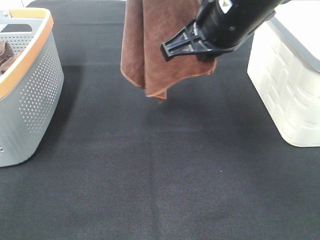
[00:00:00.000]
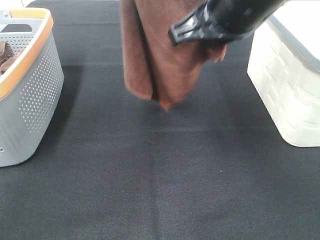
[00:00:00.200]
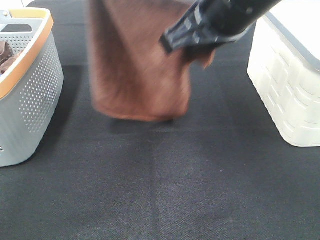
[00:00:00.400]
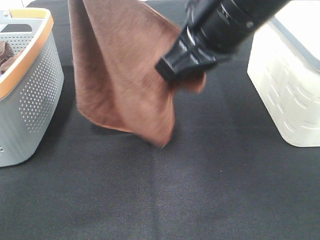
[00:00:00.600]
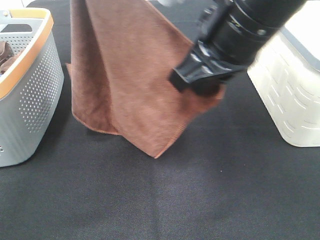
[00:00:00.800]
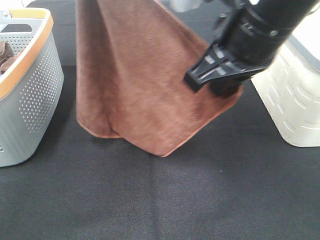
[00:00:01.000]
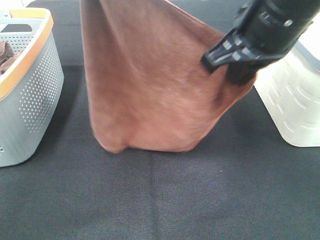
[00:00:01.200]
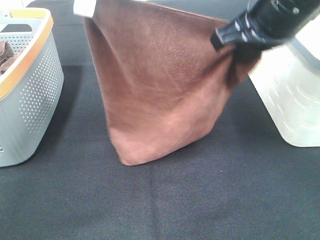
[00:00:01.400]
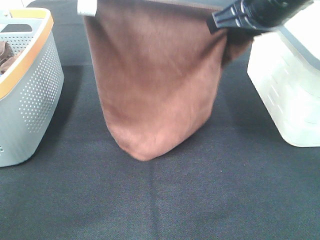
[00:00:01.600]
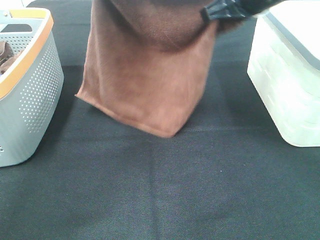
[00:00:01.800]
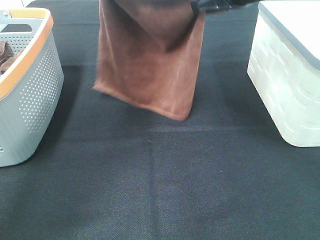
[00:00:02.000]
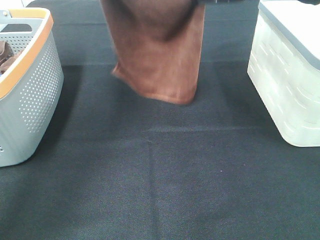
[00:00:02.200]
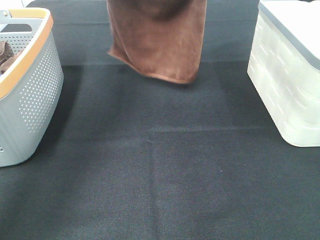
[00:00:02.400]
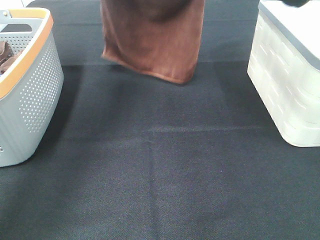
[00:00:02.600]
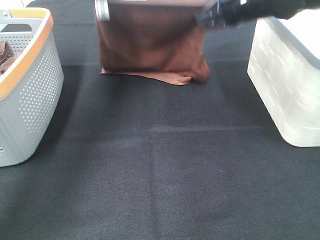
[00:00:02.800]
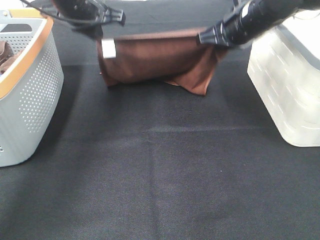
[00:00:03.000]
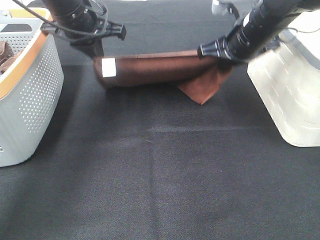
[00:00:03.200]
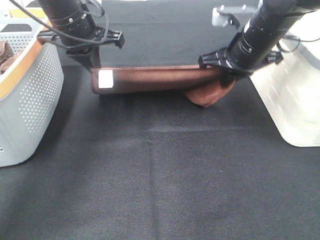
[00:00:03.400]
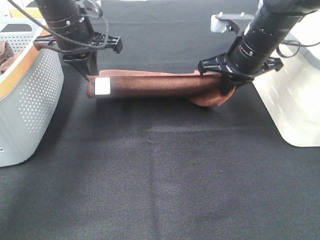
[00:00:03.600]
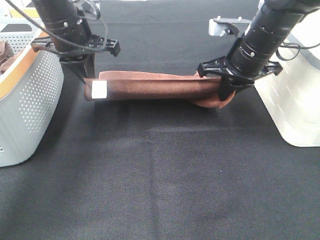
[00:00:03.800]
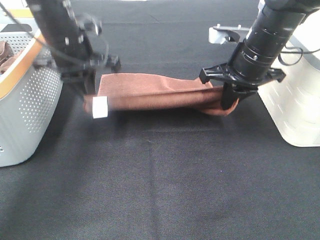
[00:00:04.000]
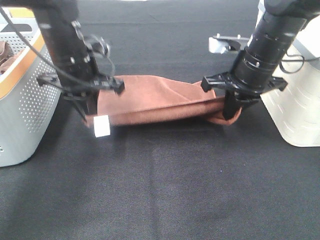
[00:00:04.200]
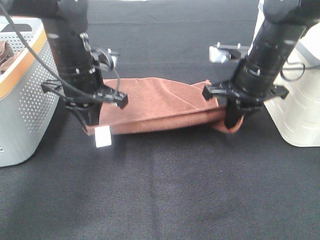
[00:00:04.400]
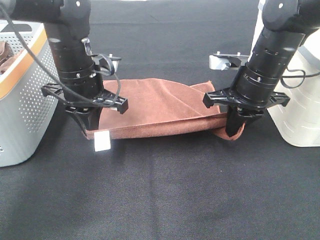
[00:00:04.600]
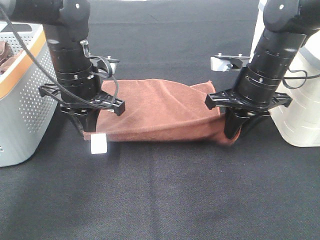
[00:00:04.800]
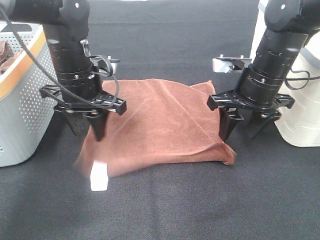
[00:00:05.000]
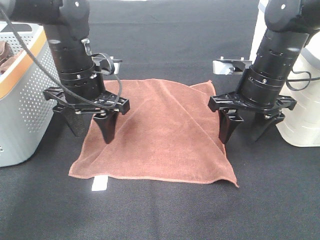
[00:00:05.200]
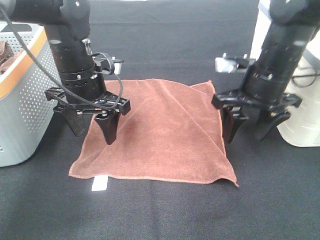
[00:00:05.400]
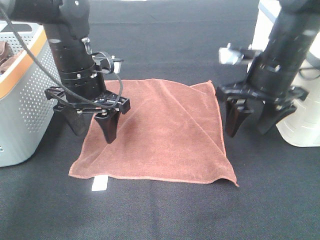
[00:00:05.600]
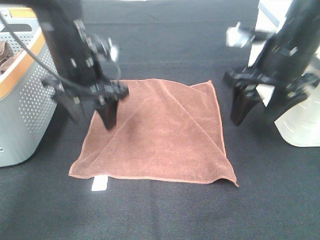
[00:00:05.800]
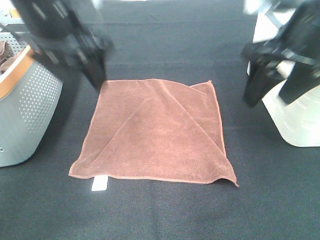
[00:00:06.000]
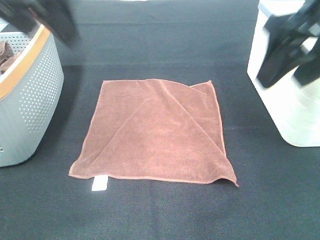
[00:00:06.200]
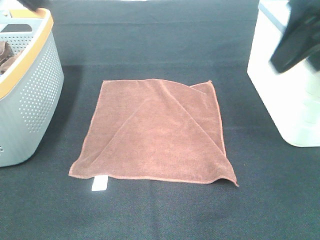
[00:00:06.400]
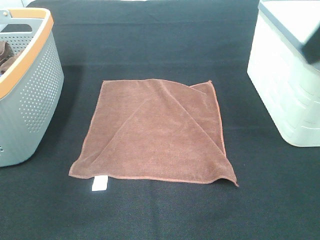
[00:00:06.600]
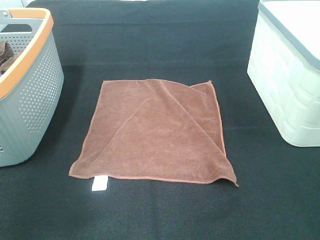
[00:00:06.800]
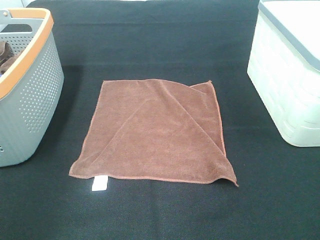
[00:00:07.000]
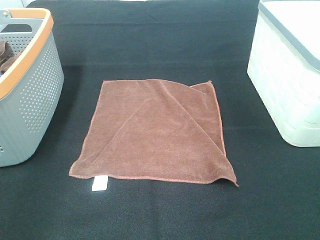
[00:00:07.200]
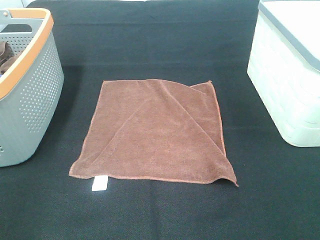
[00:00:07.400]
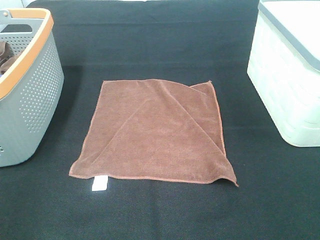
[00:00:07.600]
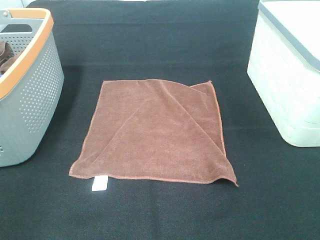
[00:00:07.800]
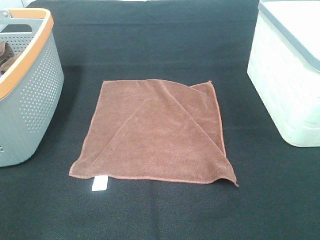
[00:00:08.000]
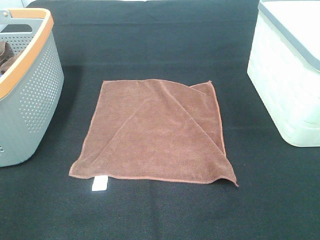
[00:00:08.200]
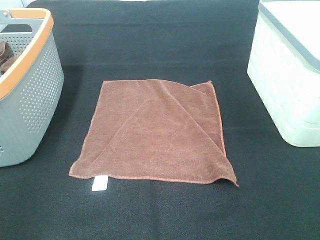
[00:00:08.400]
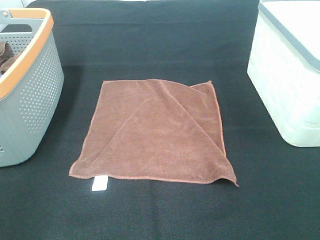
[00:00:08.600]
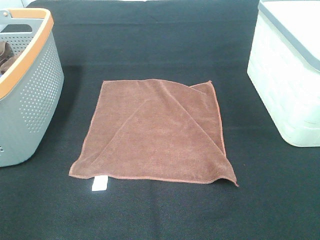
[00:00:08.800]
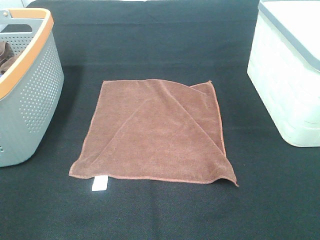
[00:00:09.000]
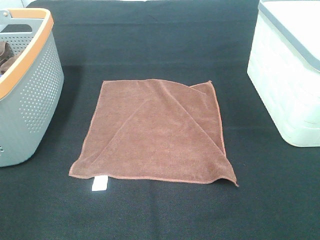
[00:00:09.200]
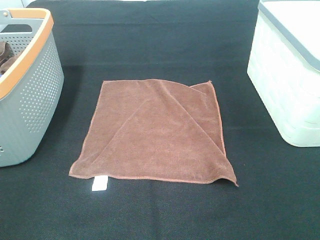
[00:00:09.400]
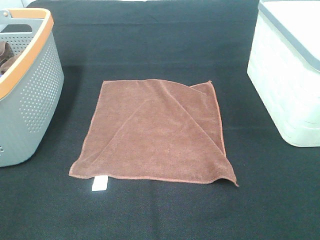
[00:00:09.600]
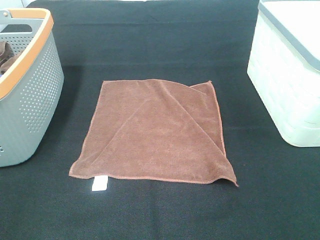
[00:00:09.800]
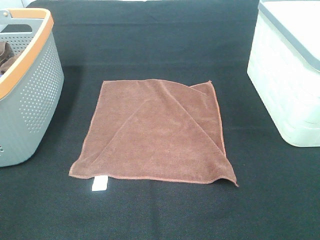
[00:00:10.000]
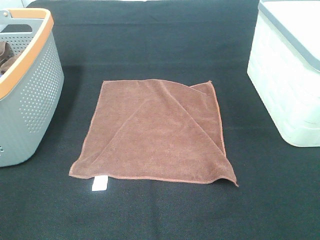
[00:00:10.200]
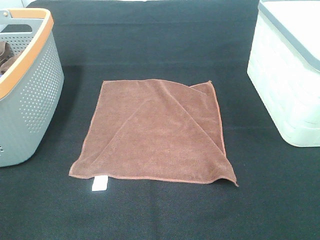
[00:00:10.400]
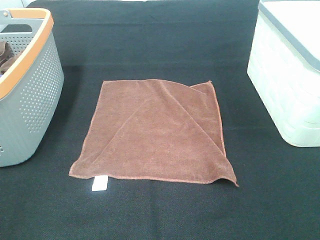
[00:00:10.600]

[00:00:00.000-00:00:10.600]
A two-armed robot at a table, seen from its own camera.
Task of the whole recording: Remove the towel and place it.
00:00:00.000 to 00:00:01.600: The right gripper shifts roughly 5 cm to the right. The left gripper is displaced downward by roughly 10 cm.
00:00:01.600 to 00:00:03.000: The left gripper is displaced downward and forward by about 15 cm, while the right gripper heads forward and downward, covering approximately 15 cm.
00:00:03.000 to 00:00:04.600: The grippers both shift backward and downward by some 10 cm.
00:00:04.600 to 00:00:06.000: The right gripper goes about 15 cm upward and backward, and opens; the left gripper heads upward, covering about 15 cm, and opens up.
00:00:06.000 to 00:00:07.600: The left gripper goes some 35 cm backward and to the left; the right gripper heads backward, covering about 25 cm.
00:00:07.600 to 00:00:09.000: Neither gripper changes place.

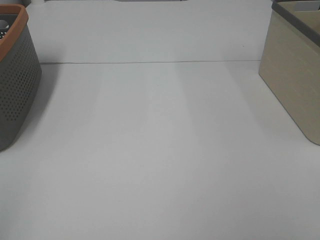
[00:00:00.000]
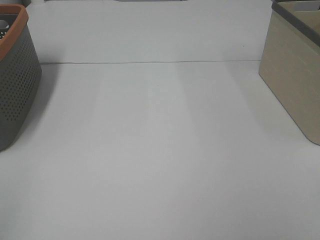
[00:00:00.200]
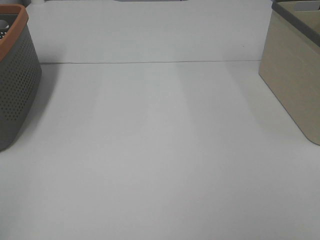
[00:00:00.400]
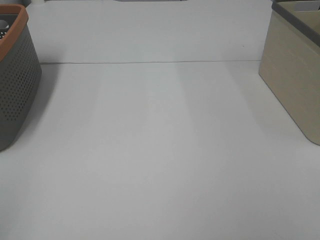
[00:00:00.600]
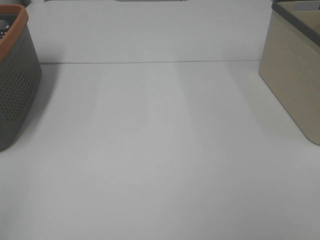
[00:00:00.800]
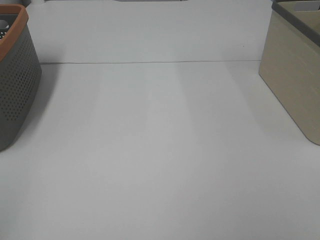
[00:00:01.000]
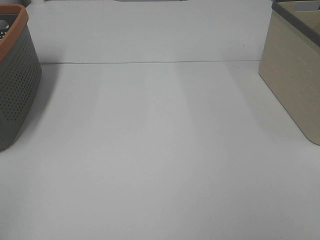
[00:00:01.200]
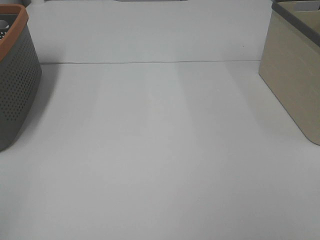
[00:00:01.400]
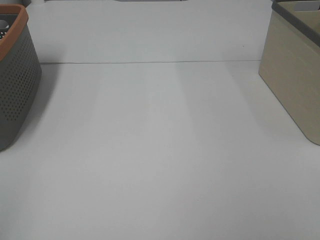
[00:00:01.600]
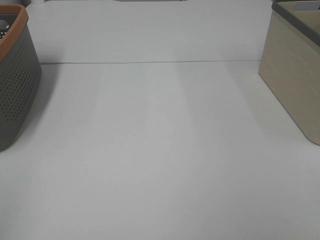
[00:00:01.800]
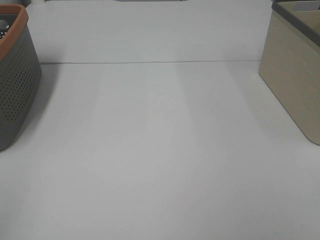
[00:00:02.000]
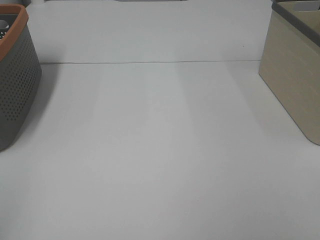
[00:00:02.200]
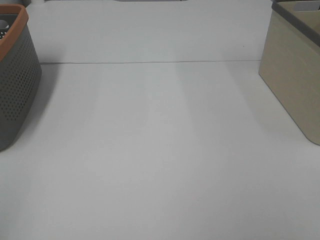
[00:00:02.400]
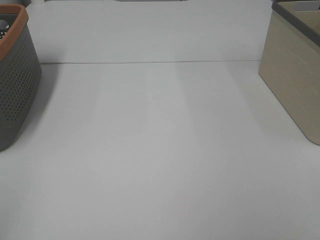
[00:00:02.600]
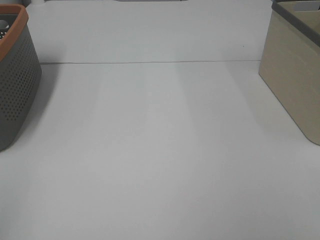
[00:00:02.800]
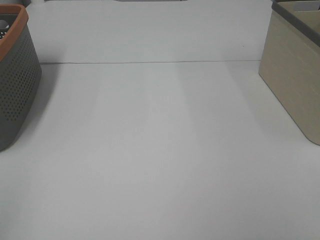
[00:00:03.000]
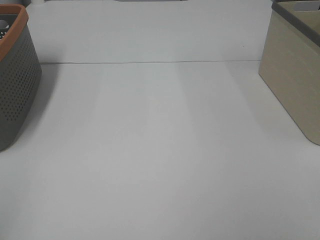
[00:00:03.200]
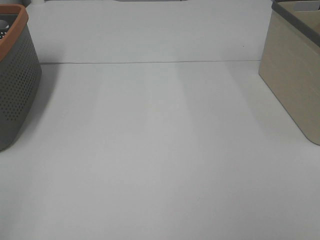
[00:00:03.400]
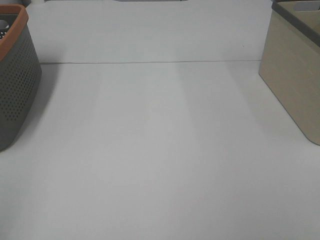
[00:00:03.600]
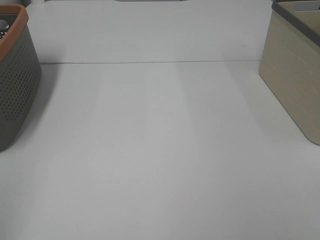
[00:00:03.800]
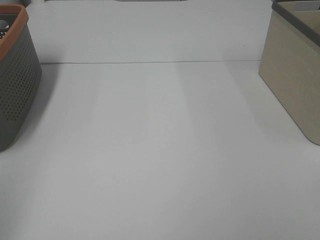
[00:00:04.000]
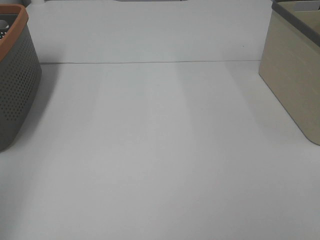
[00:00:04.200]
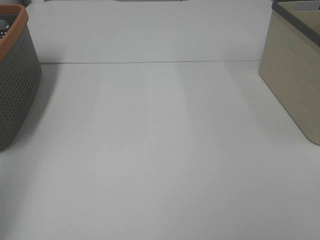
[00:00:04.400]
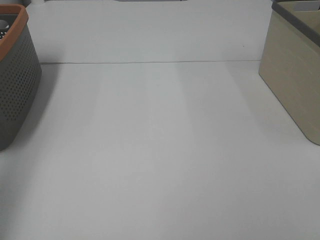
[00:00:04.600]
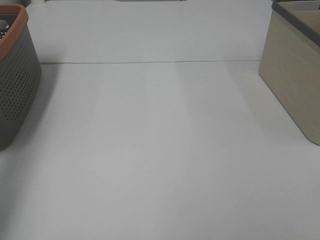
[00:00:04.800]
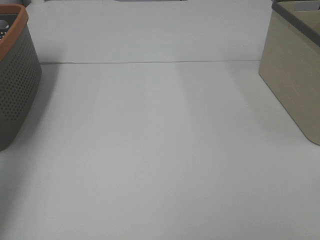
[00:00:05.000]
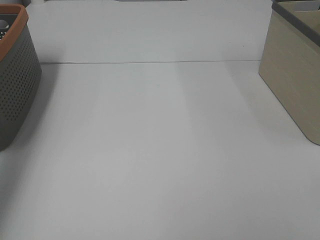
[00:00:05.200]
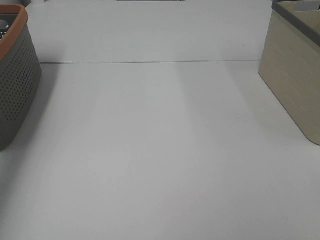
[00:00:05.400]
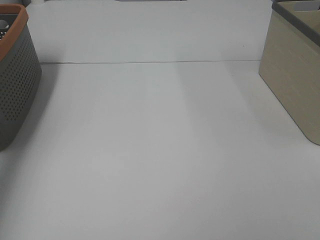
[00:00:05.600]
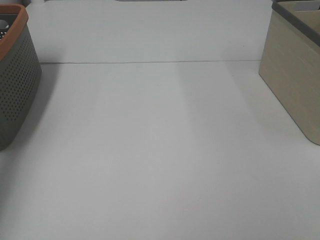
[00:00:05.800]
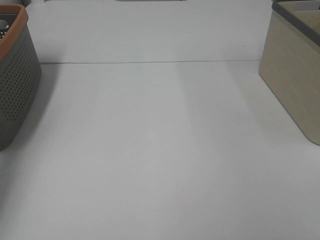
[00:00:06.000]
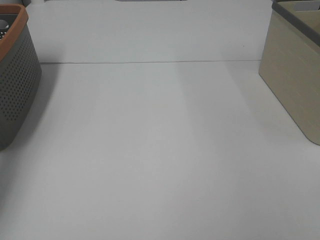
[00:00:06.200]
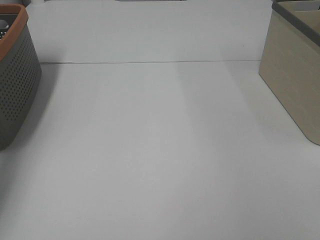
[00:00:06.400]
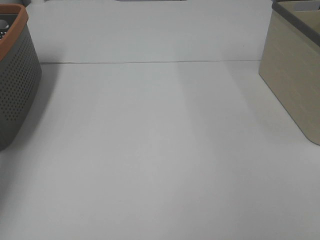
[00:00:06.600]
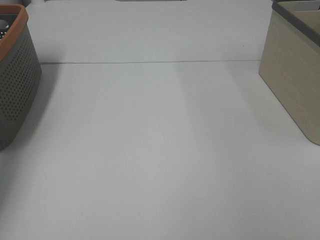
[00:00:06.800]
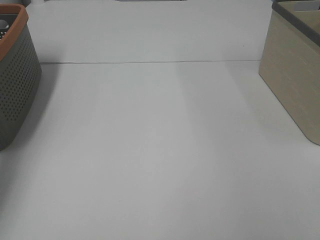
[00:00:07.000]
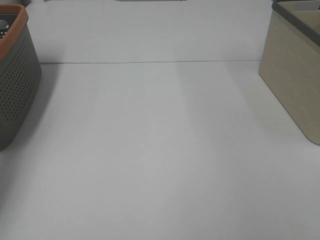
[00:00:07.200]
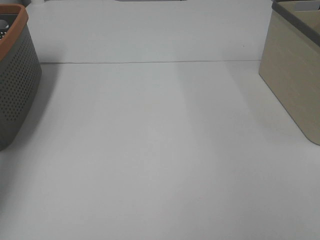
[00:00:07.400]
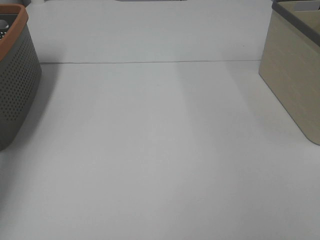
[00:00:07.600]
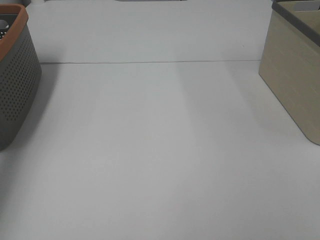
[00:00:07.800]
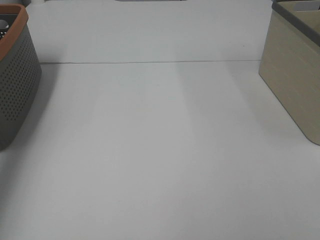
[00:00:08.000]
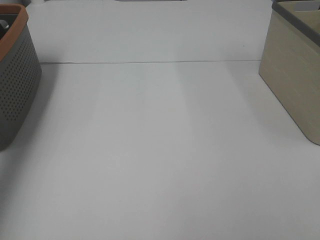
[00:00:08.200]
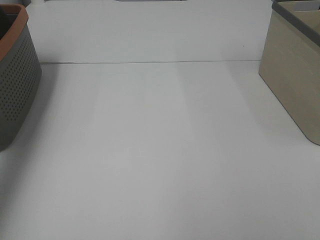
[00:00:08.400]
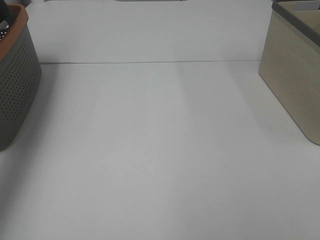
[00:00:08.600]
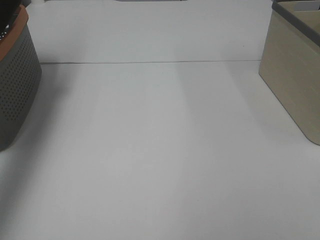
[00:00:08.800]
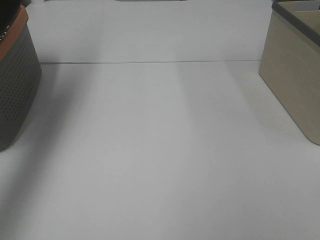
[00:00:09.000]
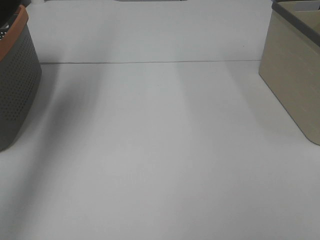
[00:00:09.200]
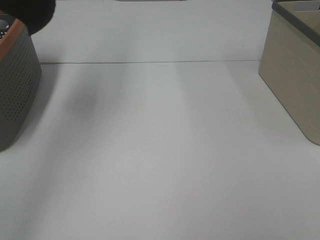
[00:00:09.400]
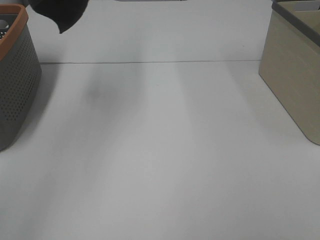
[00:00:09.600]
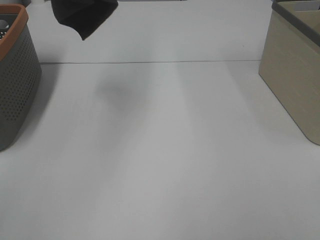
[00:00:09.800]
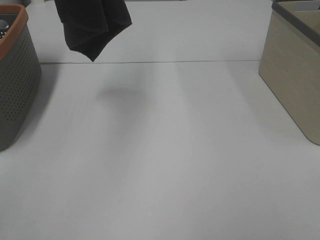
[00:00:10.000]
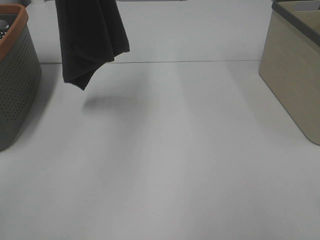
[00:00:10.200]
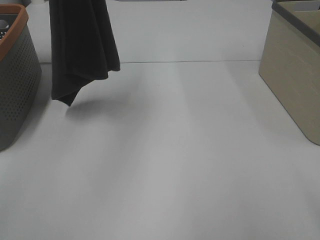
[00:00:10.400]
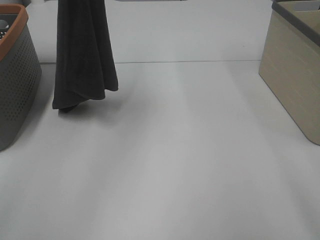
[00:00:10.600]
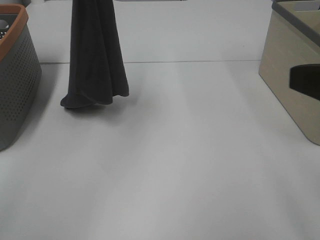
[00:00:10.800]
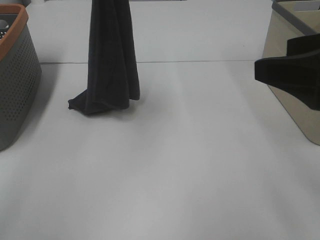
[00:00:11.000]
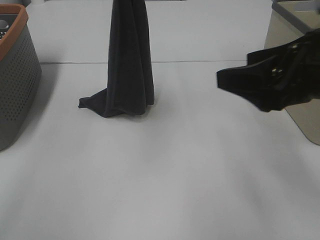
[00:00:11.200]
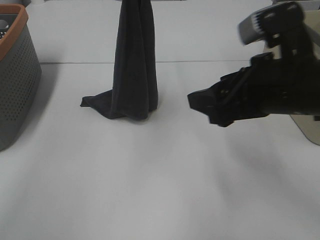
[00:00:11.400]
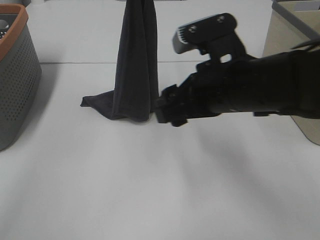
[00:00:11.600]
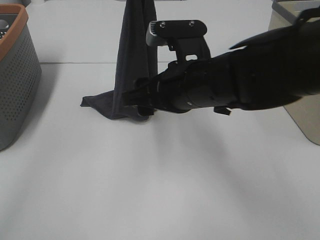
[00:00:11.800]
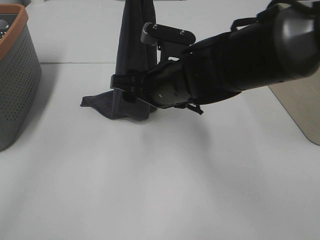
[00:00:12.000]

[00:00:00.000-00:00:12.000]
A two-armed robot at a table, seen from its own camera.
Task of the whole recording: Remove the towel and place it.
00:00:00.000 to 00:00:03.000: The two grippers keep their place.
00:00:03.000 to 00:00:04.400: The left gripper moves forward and upward, approximately 15 cm.
00:00:04.400 to 00:00:06.000: The left gripper is displaced forward and downward by some 40 cm.
00:00:07.600 to 00:00:09.000: The left gripper is displaced upward and backward by approximately 40 cm.
00:00:09.000 to 00:00:10.400: The right gripper travels forward by about 5 cm. Meanwhile the left gripper heads to the right and downward, covering roughly 20 cm.
00:00:10.400 to 00:00:12.000: The left gripper is displaced downward and to the right by about 15 cm; the right gripper moves forward, to the left and downward, some 35 cm.
